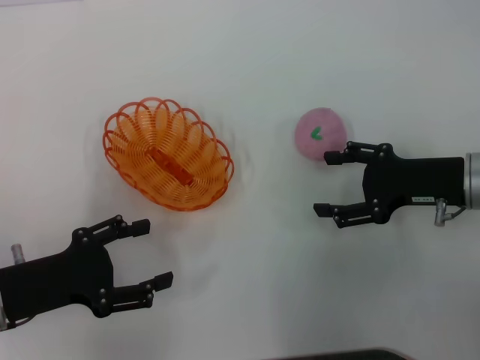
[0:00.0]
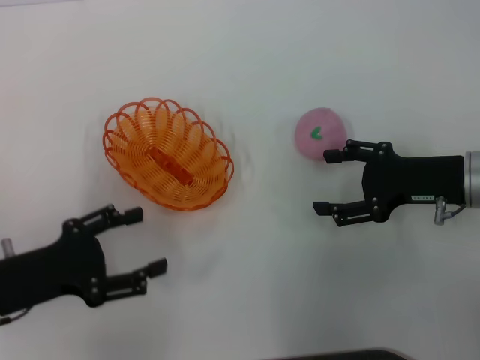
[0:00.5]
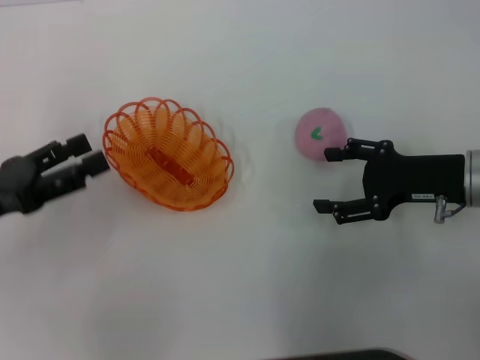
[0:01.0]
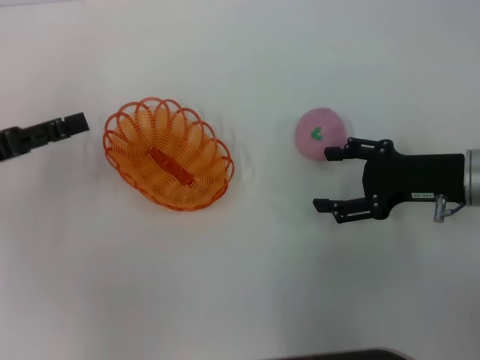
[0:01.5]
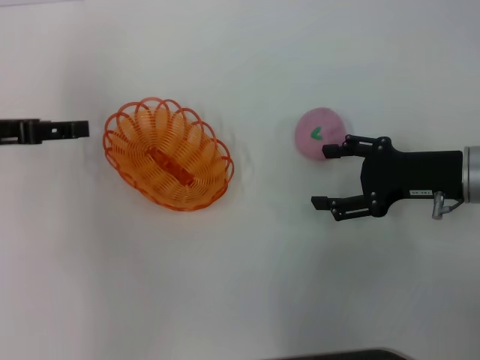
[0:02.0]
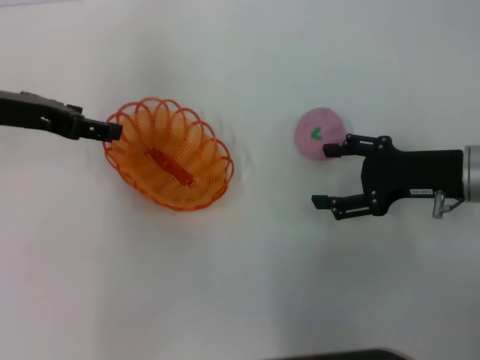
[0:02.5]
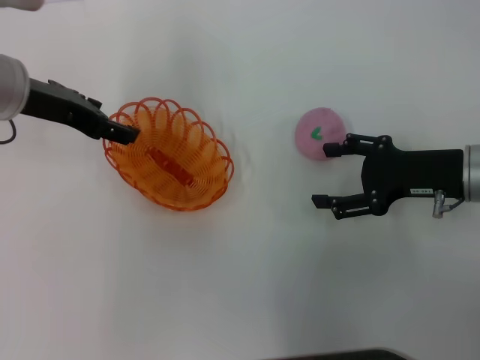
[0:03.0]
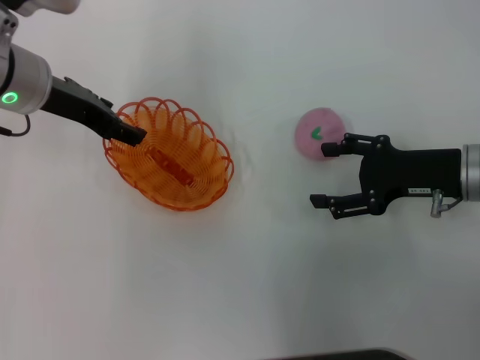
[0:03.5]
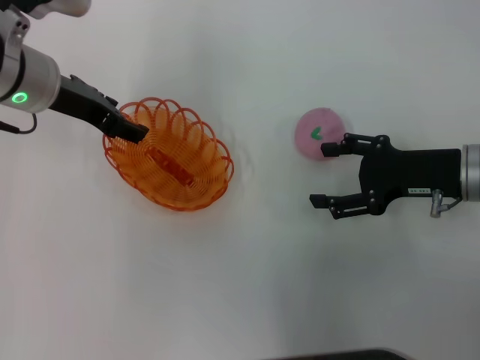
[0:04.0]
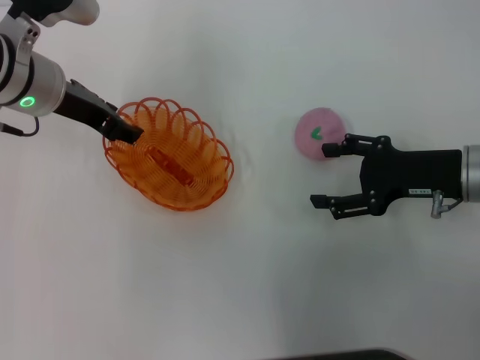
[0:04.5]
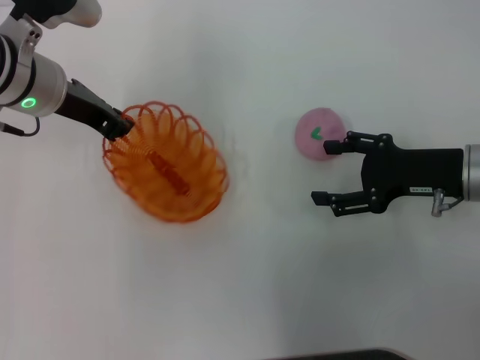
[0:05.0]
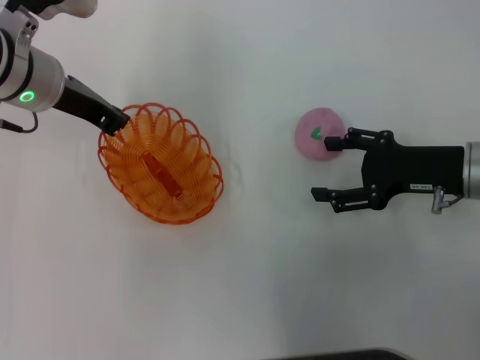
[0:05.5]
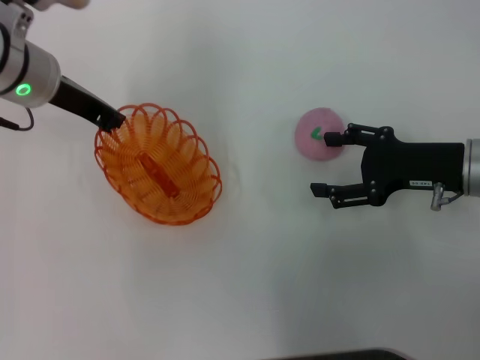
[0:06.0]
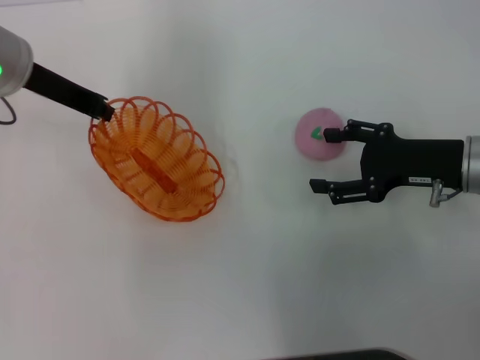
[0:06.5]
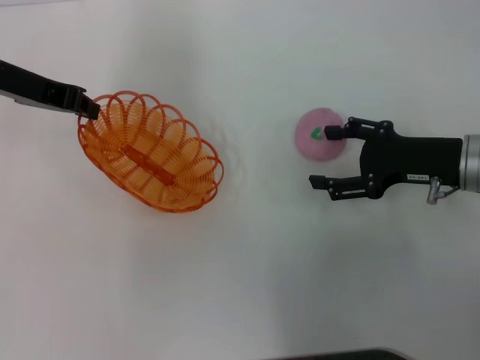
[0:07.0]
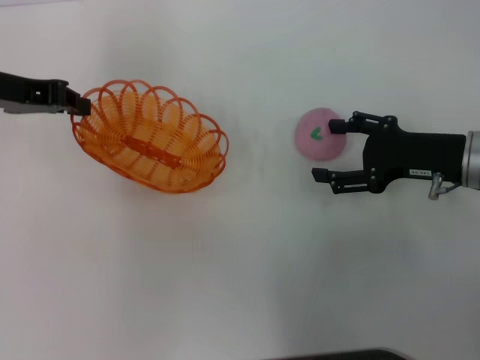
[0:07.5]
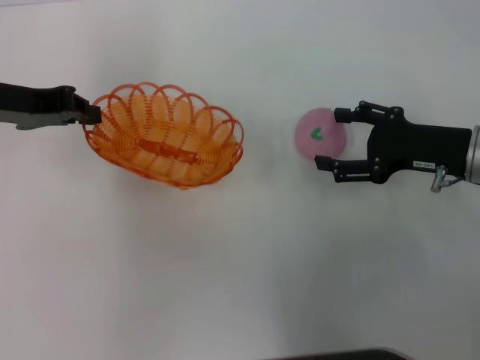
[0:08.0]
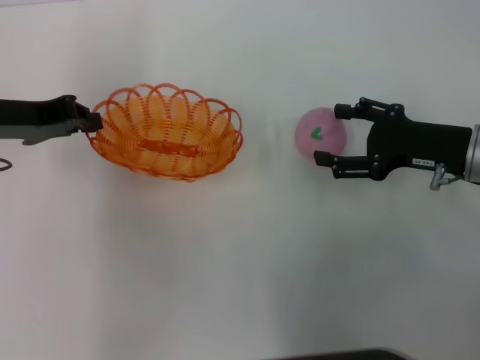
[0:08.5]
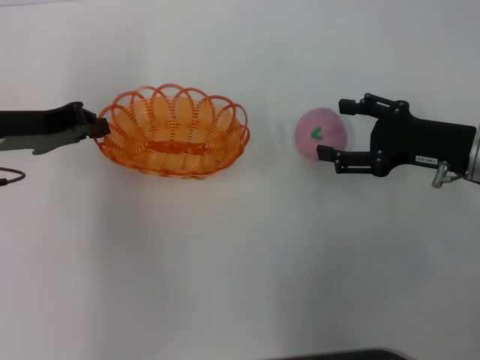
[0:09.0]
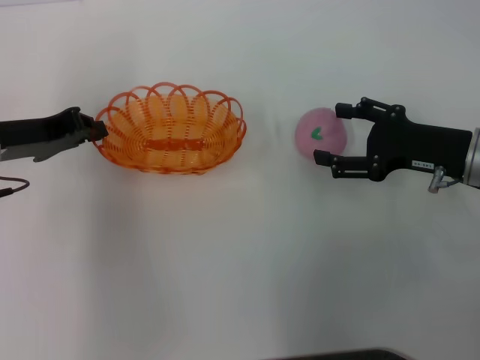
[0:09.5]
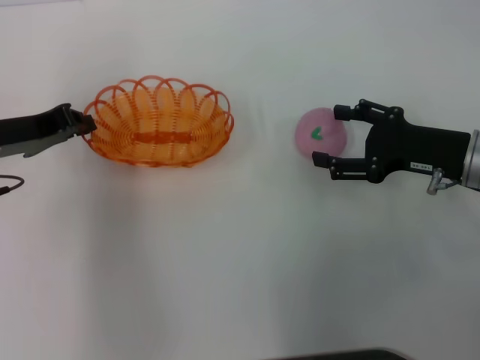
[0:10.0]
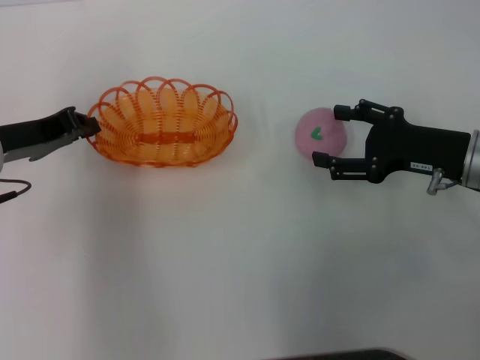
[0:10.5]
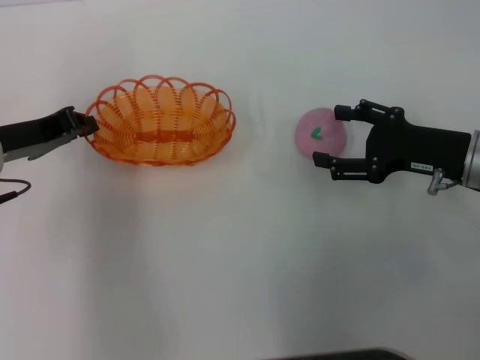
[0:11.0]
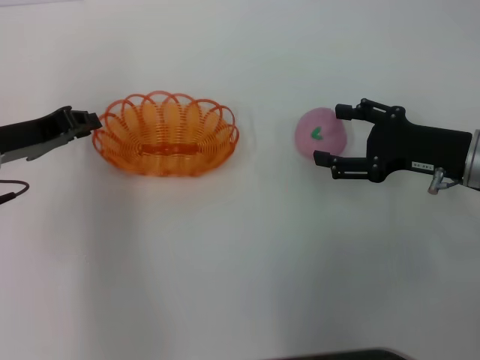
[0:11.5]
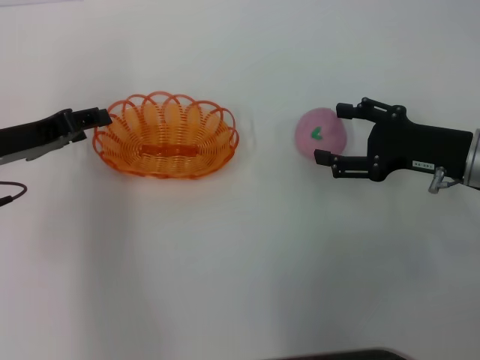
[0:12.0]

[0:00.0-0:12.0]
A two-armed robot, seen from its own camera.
Step, 0:00.0 to 0:07.0: Pick up the basket with the left gripper.
0:00.0 to 0:02.0: The left gripper moves forward and upward, about 15 cm.
0:02.0 to 0:04.0: The left gripper goes about 15 cm to the right and forward.
0:04.0 to 0:06.0: The left gripper closes its fingers.
0:06.0 to 0:08.0: The left gripper goes about 5 cm to the left.
0:08.0 to 0:10.0: The left gripper changes place by some 5 cm.
0:10.0 to 0:12.0: The left gripper opens.

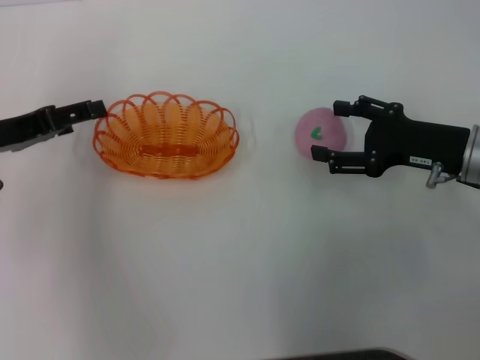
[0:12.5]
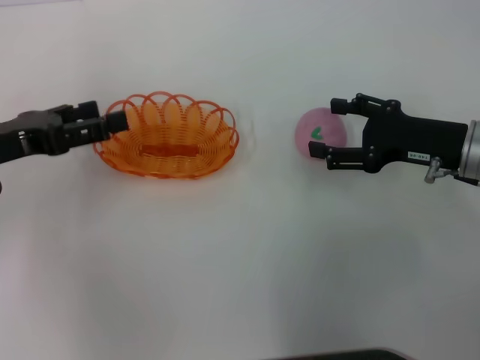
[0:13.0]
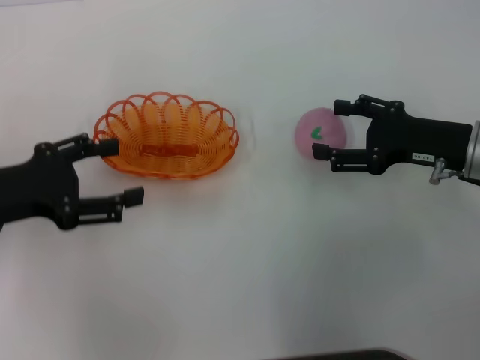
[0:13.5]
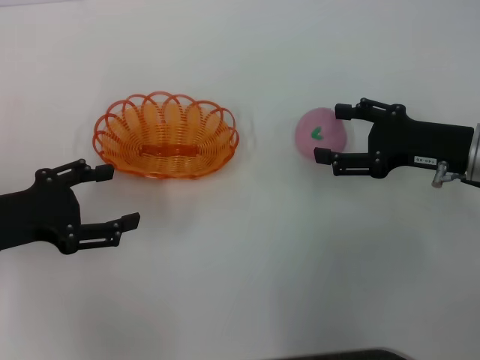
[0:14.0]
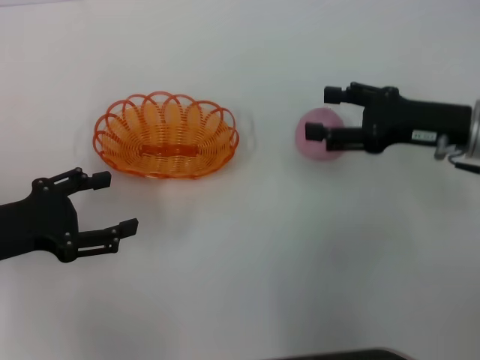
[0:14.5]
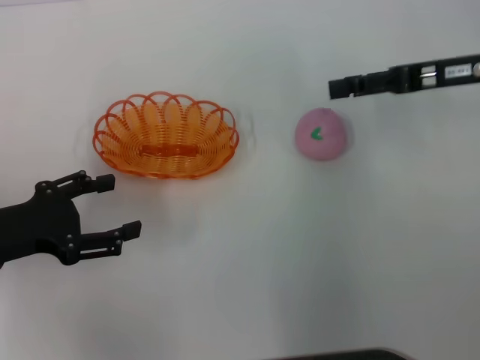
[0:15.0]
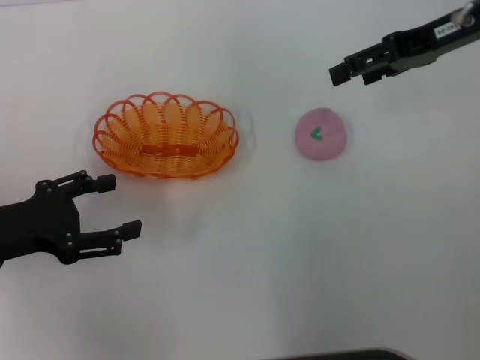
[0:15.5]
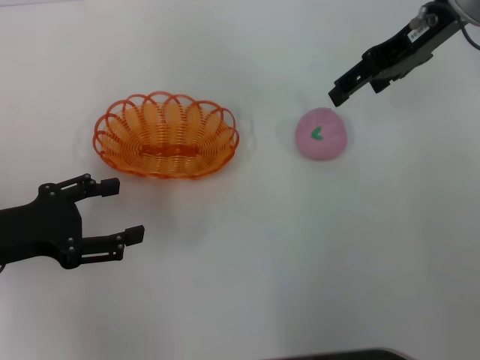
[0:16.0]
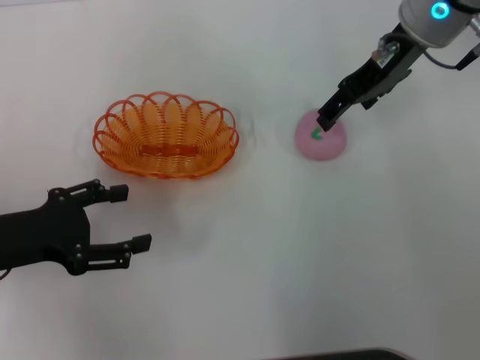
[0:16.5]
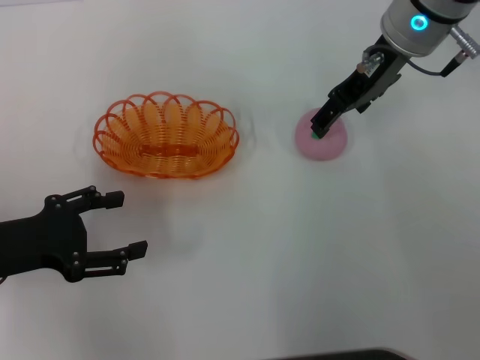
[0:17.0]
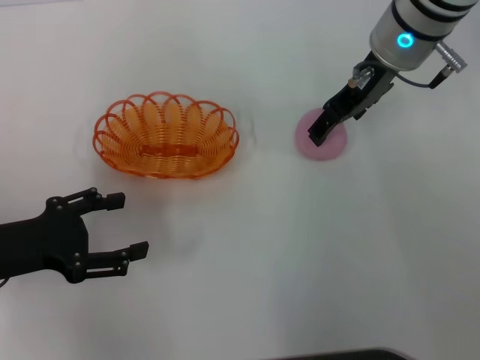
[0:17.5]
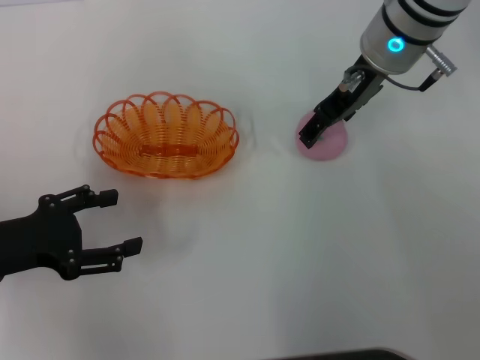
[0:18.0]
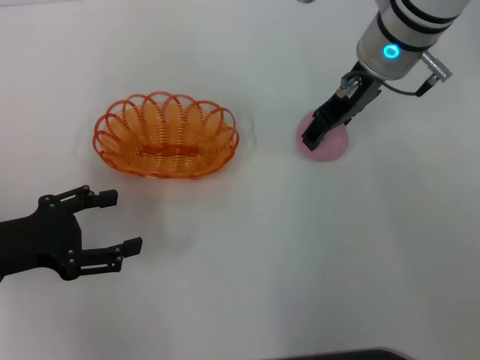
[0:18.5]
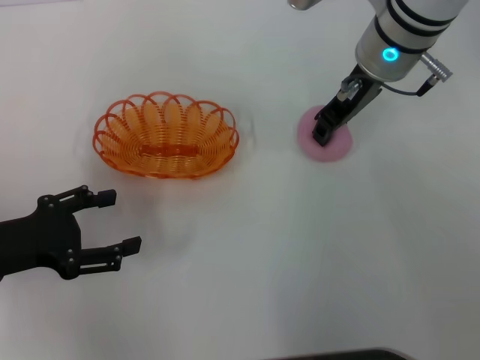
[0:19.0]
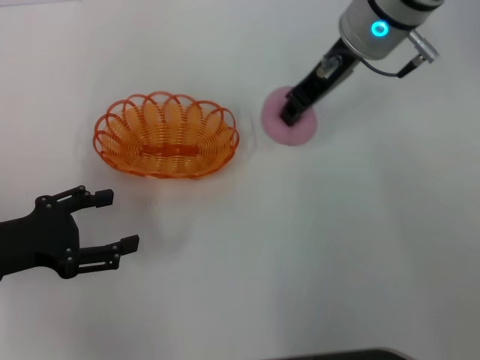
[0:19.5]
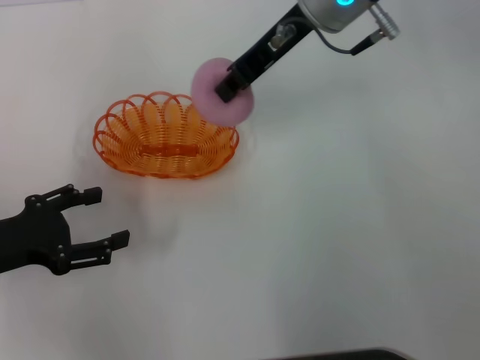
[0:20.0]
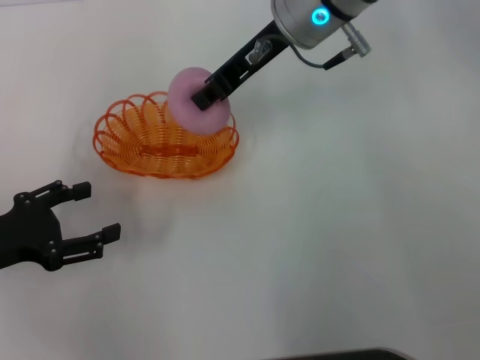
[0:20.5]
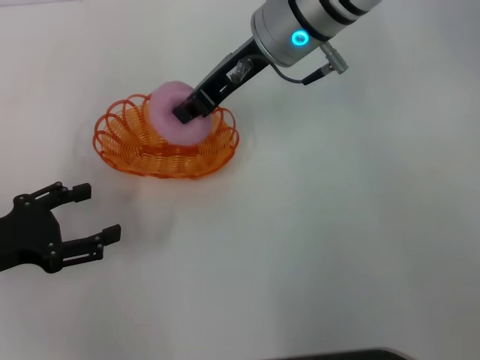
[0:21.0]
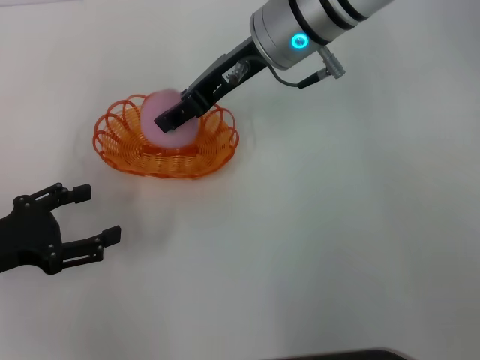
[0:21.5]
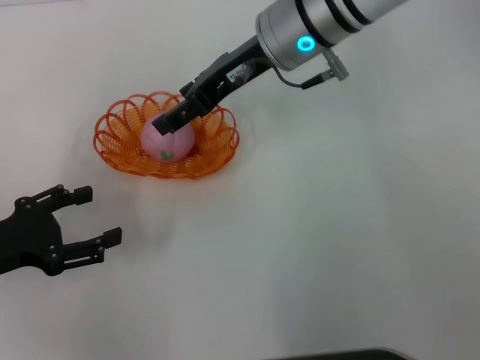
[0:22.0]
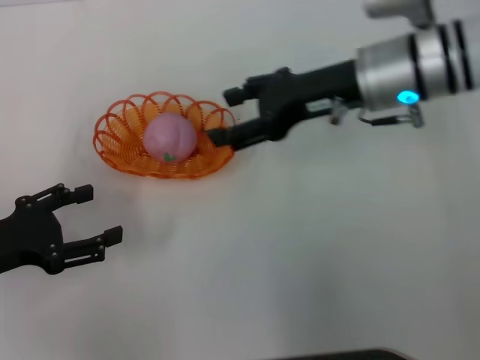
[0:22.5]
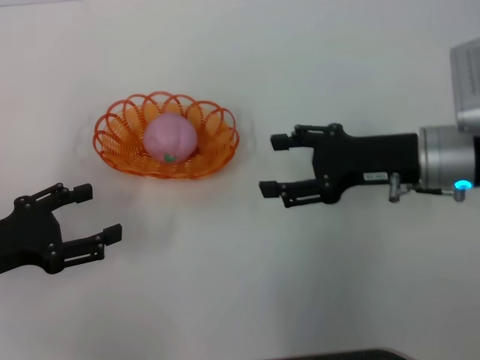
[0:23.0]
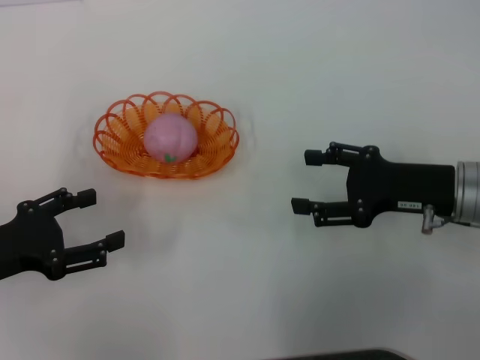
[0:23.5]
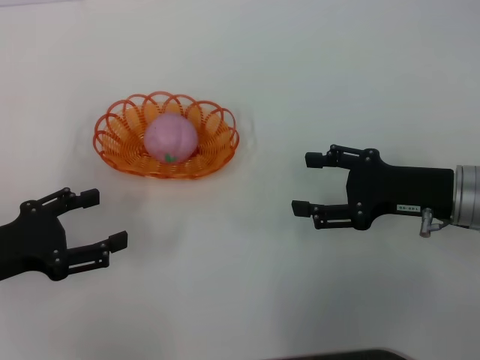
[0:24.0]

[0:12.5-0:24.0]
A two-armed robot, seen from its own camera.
Step, 0:14.5 to 0:19.5: Pick up the peach with the right gripper.
Step, 0:20.0 to 0:22.5: Place the peach into the basket with the right gripper.
0:12.5 to 0:14.5: The left gripper heads backward, covering about 5 cm.
0:14.5 to 0:16.5: The right gripper shifts about 15 cm upward, forward and to the left.
0:16.5 to 0:18.5: The grippers move only a little.
0:18.5 to 0:20.0: The right gripper travels upward by about 5 cm, and closes up.
0:20.0 to 0:22.0: The right gripper opens its fingers.
0:22.0 to 0:24.0: The right gripper goes approximately 25 cm to the right, backward and downward.
